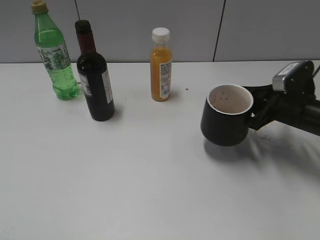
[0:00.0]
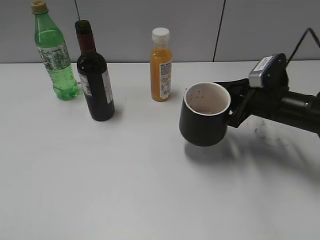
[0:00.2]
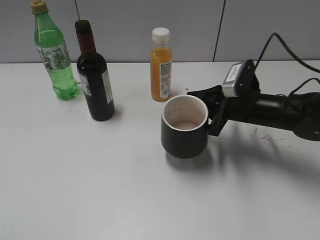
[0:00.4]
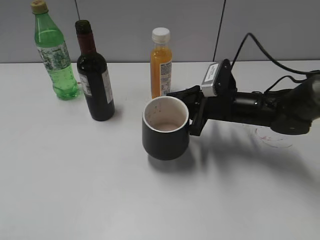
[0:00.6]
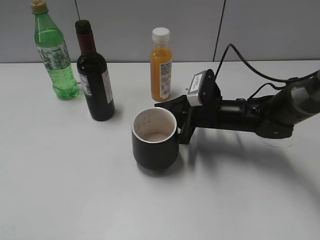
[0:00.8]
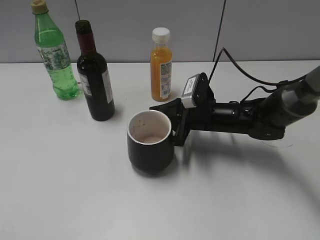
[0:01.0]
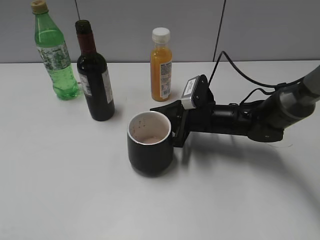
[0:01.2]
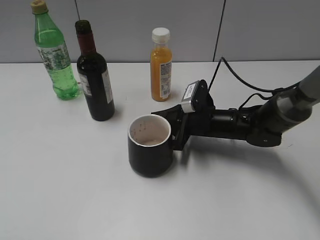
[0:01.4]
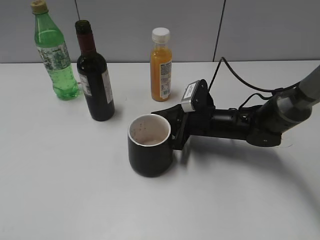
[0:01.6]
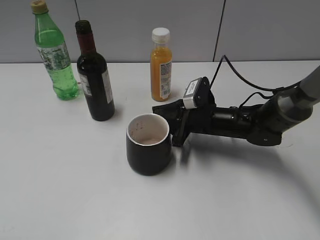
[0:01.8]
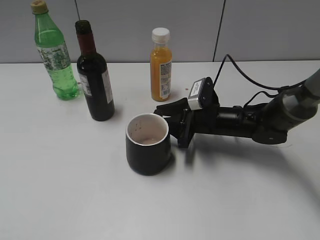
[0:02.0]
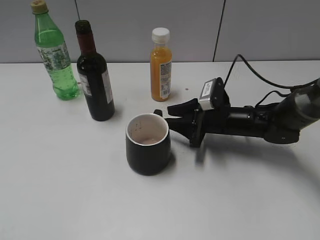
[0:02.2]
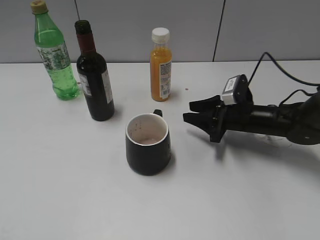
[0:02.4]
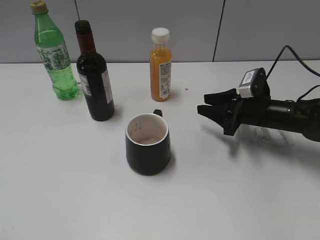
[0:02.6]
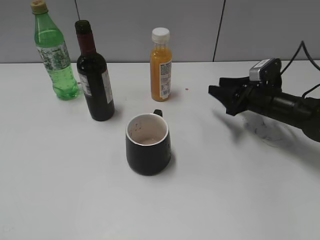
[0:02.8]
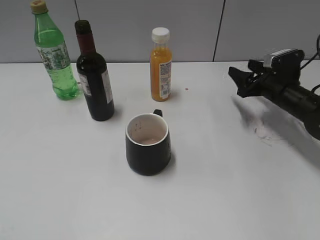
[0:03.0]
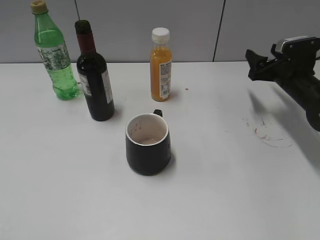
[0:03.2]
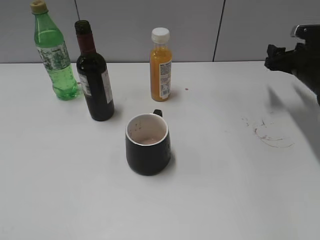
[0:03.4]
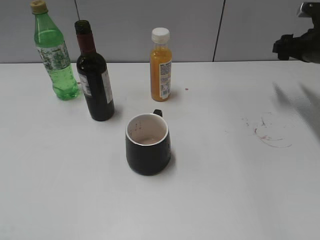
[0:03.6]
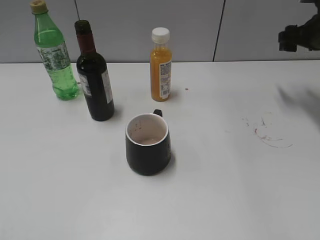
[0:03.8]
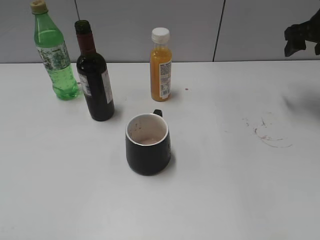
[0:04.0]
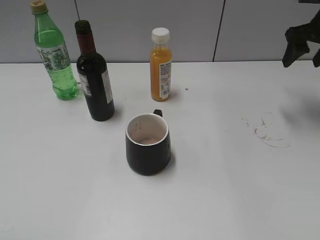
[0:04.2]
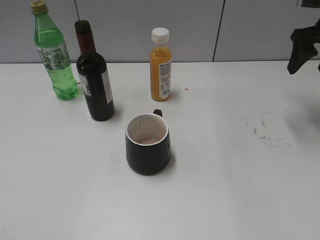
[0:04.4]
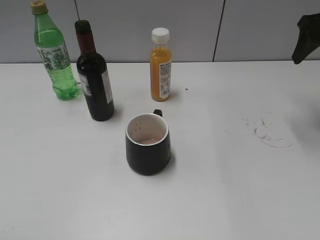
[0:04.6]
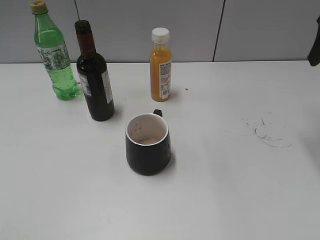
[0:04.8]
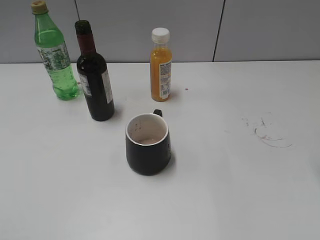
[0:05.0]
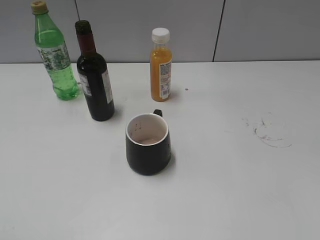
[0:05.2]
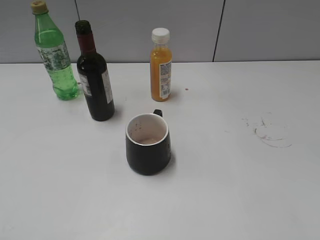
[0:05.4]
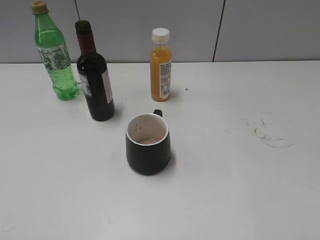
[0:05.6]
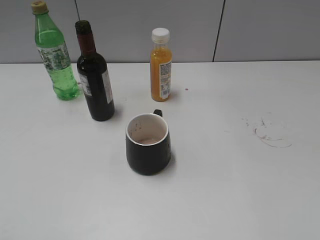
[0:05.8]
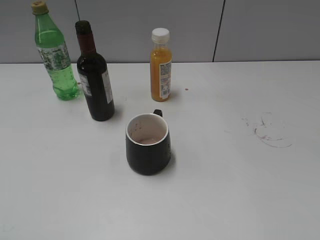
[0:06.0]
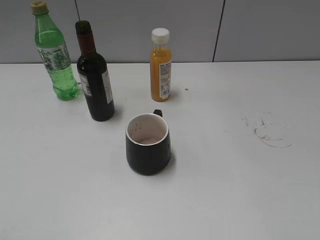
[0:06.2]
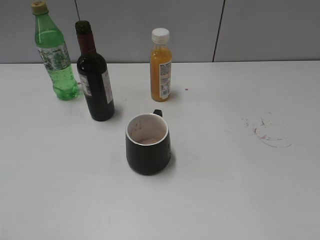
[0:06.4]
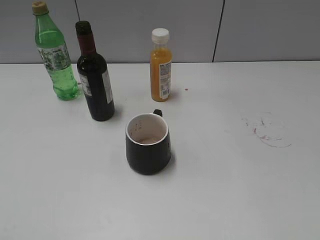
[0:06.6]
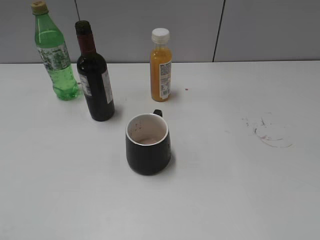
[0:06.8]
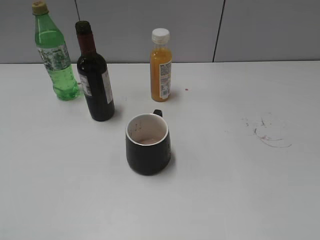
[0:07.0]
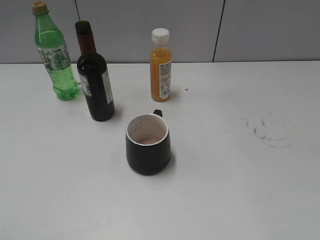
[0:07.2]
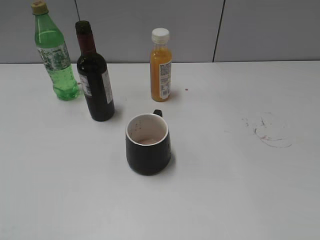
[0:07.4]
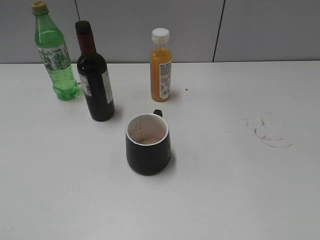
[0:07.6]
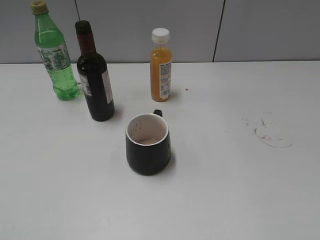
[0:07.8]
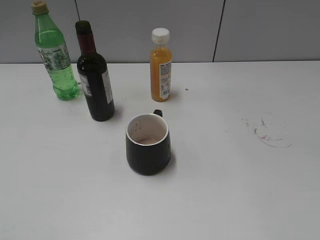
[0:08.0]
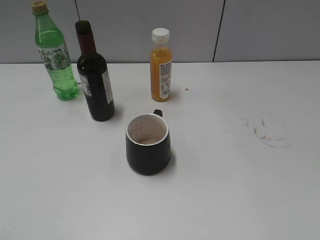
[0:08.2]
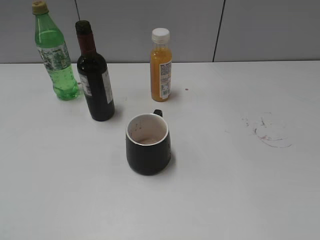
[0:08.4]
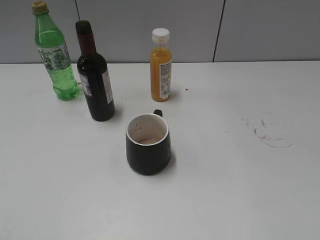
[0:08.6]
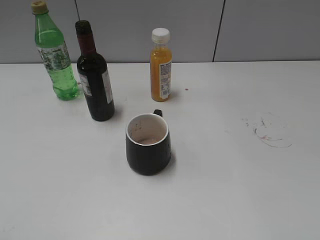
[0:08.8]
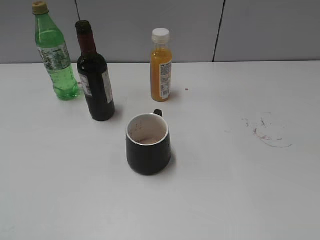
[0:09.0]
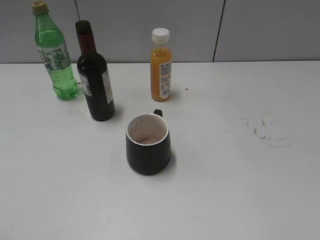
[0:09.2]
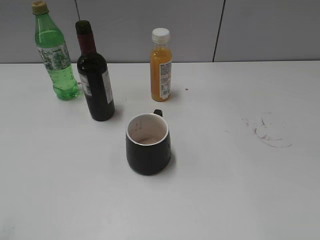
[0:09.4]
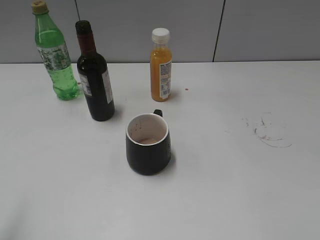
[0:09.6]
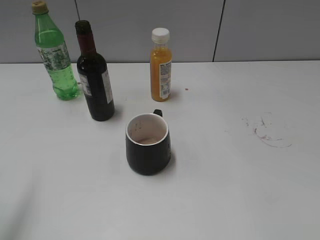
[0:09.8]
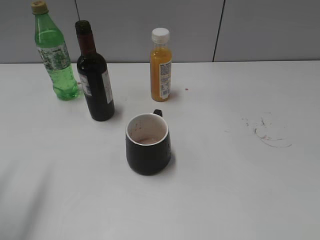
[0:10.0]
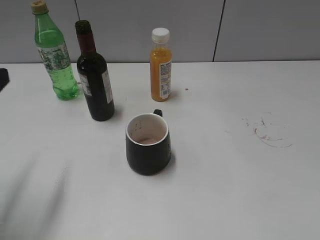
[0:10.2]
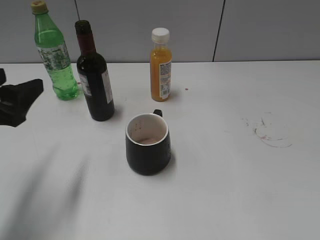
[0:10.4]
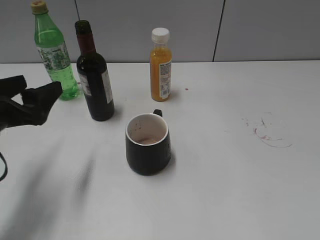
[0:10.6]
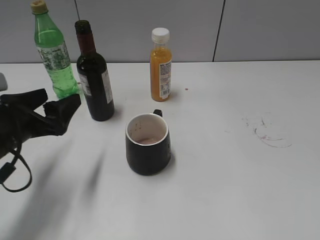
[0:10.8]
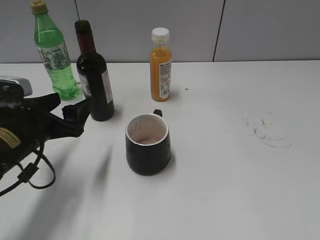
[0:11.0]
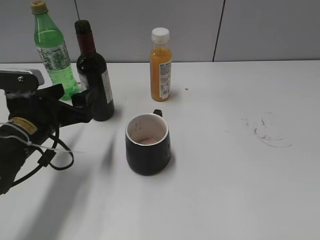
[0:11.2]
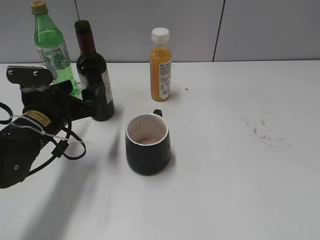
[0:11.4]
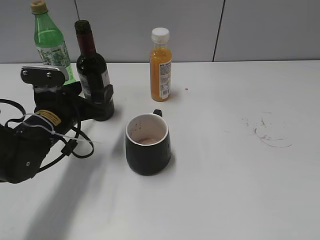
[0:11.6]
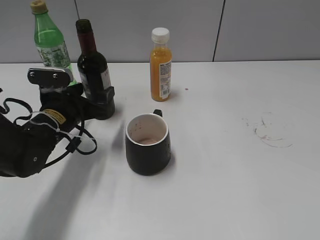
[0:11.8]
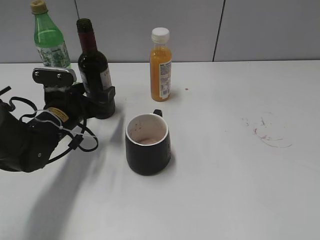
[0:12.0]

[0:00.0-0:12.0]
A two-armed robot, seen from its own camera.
Step, 0:00.0 to 0:02.2: Place the black cup in the center of view with right gripper.
0:00.0 to 0:01.6: The right gripper is displaced to the left by about 15 cm.
0:01.6 to 0:03.0: The right gripper moves to the right, roughly 15 cm, and opens its fingers.
0:03.0 to 0:04.4: The right gripper moves upward, about 15 cm.
0:04.4 to 0:06.0: The right gripper goes about 35 cm backward.
0:09.0 to 0:10.4: The left gripper is displaced forward by about 20 cm.
0:10.4 to 0:12.0: The left gripper travels forward, downward and to the right by some 20 cm, and opens.

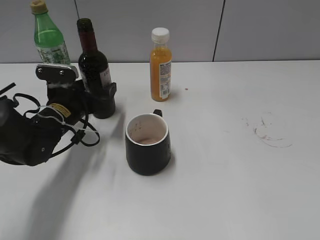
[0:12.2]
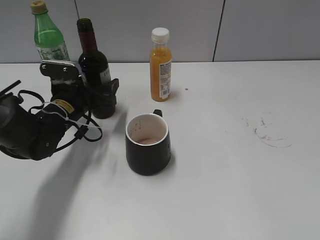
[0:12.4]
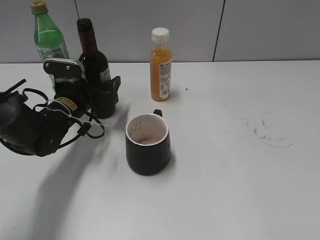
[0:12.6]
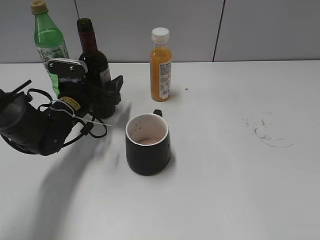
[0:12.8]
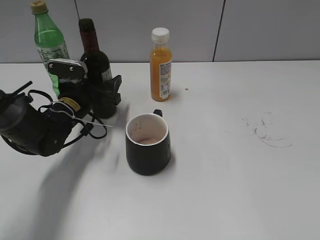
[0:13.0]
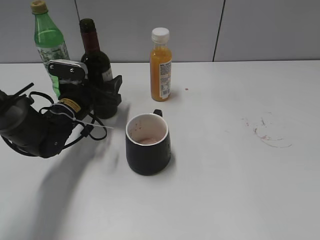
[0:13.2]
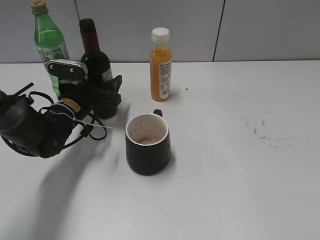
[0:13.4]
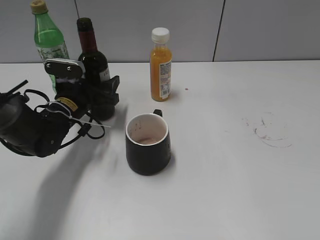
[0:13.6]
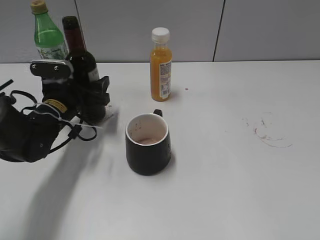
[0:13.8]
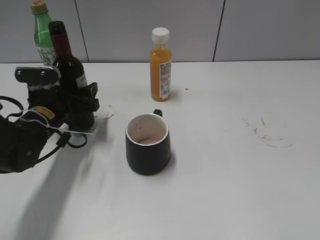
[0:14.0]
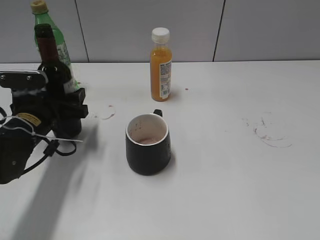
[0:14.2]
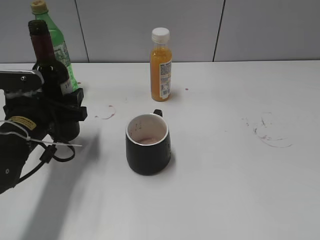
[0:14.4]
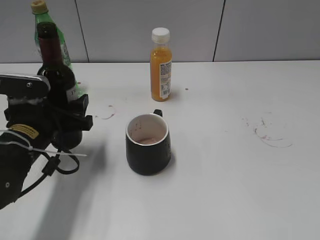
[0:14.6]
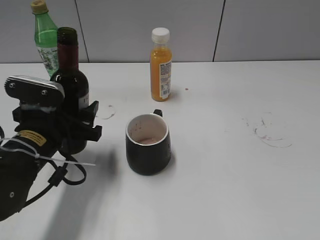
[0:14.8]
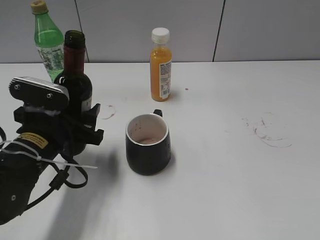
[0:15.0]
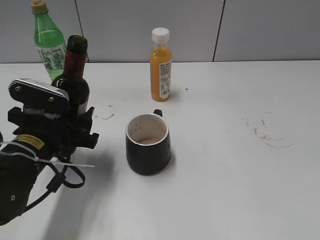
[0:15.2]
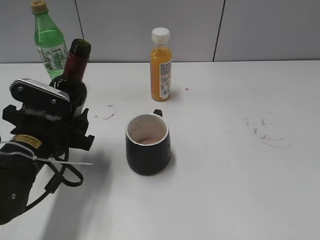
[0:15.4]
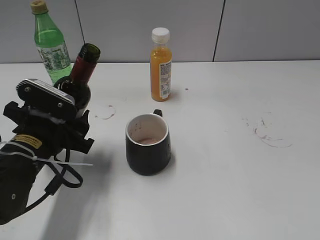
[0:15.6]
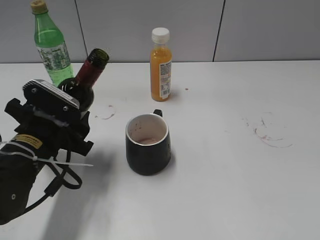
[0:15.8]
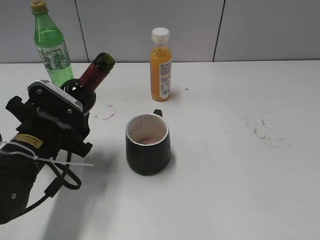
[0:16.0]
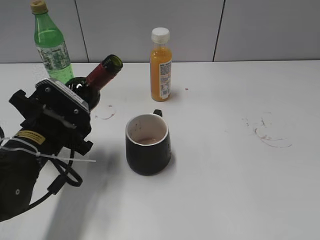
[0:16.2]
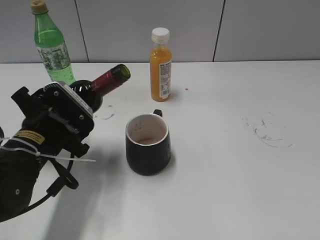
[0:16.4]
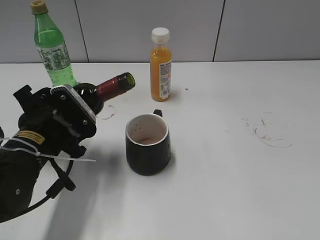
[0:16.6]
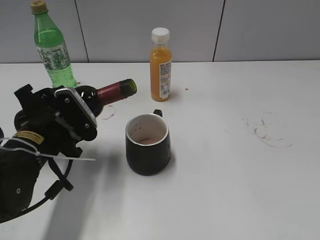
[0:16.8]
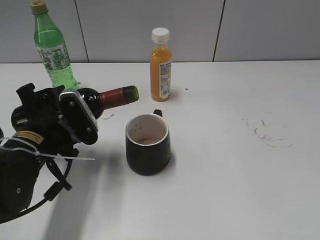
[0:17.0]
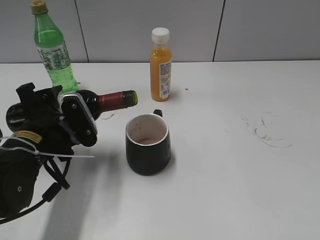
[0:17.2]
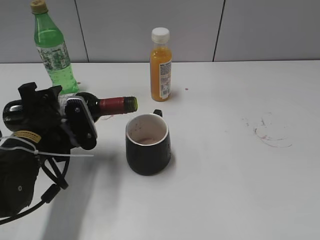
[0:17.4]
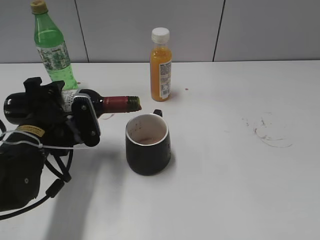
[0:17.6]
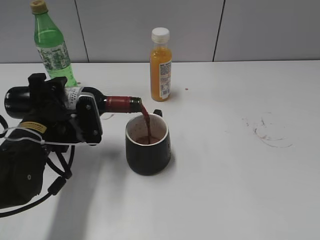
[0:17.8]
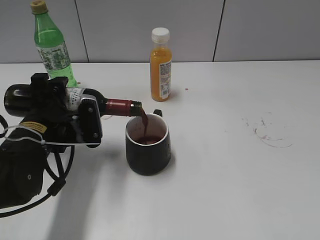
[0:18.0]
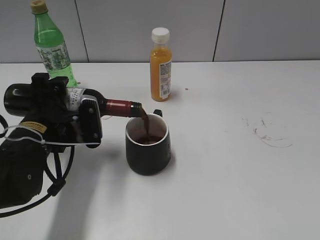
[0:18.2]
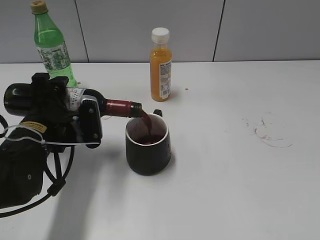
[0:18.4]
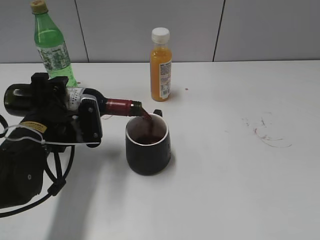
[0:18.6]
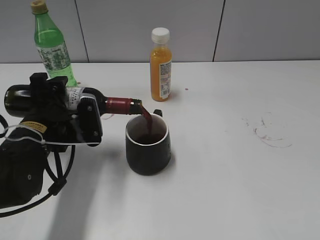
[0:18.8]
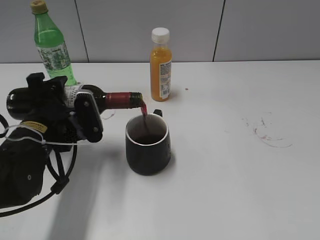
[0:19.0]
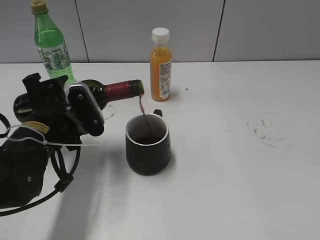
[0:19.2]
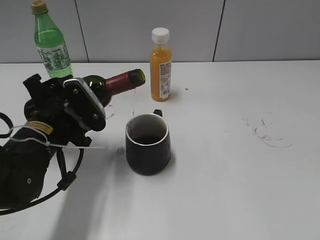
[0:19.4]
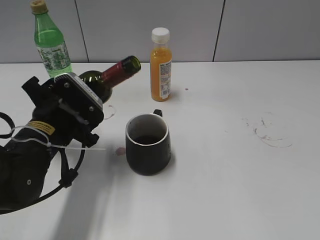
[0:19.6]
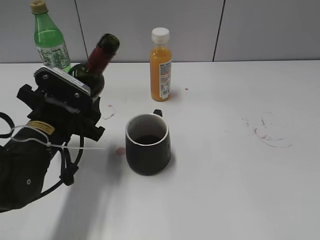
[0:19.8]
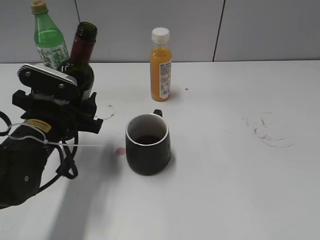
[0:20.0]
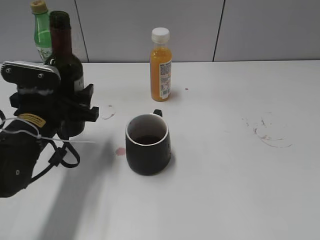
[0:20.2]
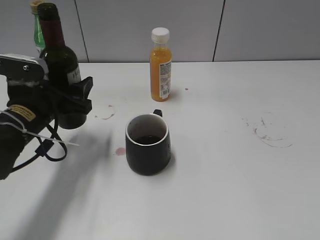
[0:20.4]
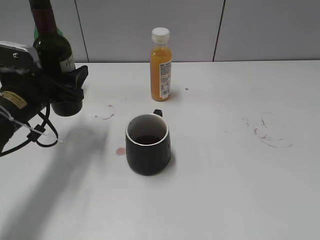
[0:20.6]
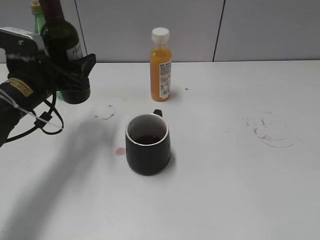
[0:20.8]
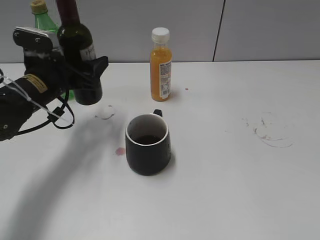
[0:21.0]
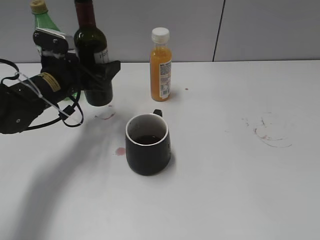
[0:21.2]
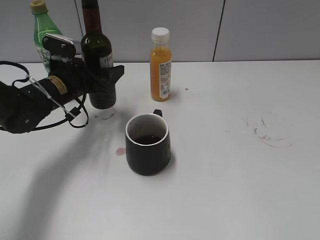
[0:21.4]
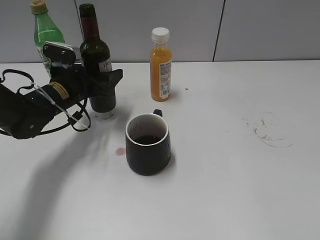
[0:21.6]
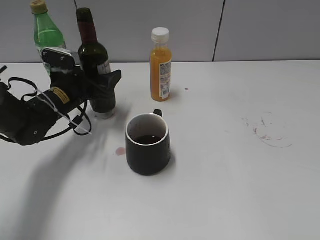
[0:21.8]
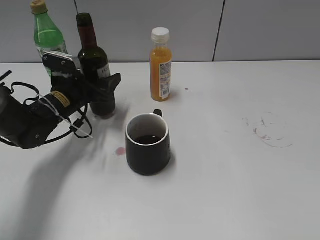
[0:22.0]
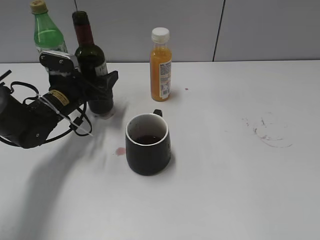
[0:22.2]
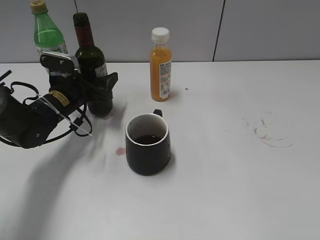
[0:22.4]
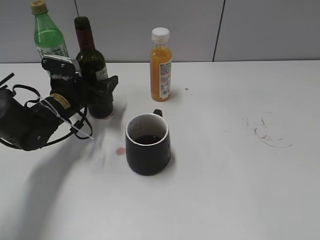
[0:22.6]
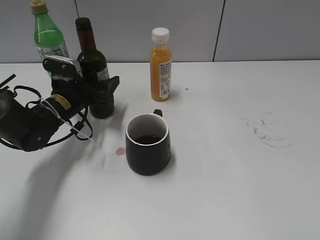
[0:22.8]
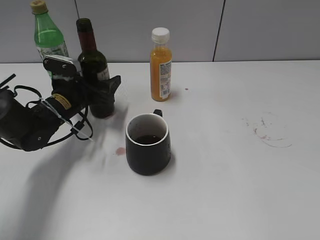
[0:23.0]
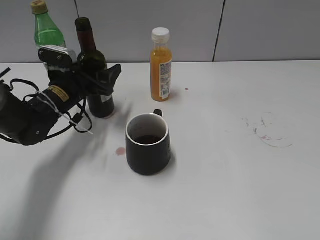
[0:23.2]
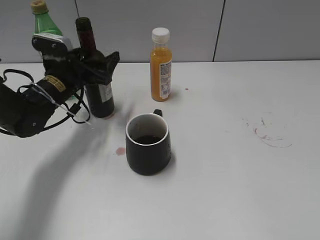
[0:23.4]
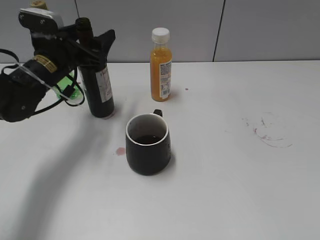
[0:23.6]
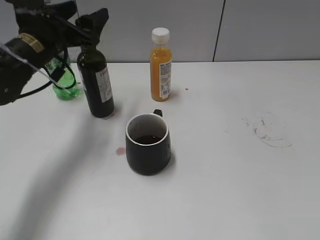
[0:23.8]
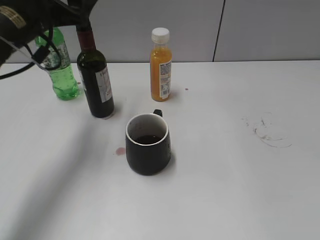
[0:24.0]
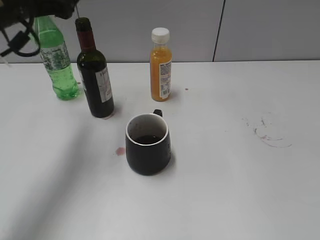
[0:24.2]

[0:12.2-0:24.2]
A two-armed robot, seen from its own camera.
Step, 0:13.6 to 0:19.4: Pour the red wine from bottle to cup with left gripper.
Step, 0:19.6 to 0:23.4: Place the red wine bottle on the table with left gripper.
0:12.2 to 0:13.8: The left gripper closes its fingers.
0:13.8 to 0:15.2: The left gripper moves backward, some 10 cm.
0:19.8 to 0:21.2: The left gripper is displaced forward by approximately 10 cm.
0:21.2 to 0:22.6: The left gripper travels downward by some 5 cm.
0:22.6 to 0:24.2: The left gripper shifts approximately 20 cm upward, and opens up.
